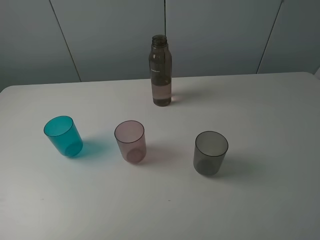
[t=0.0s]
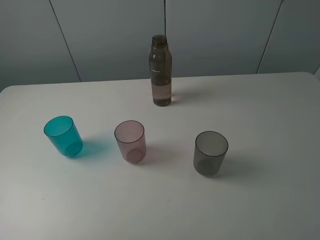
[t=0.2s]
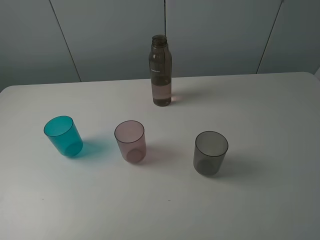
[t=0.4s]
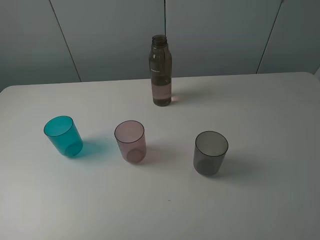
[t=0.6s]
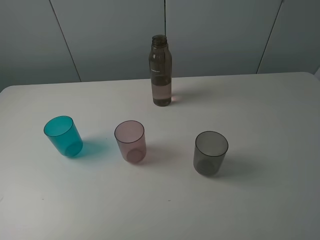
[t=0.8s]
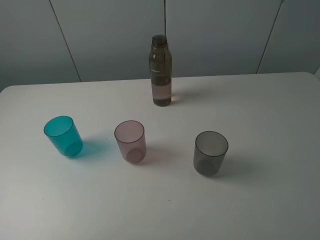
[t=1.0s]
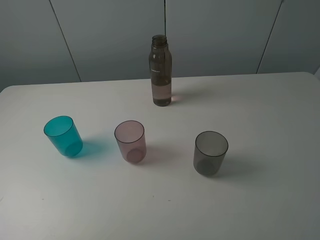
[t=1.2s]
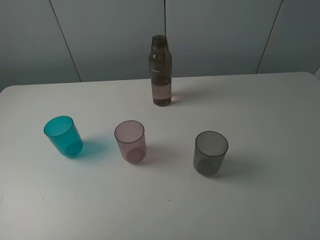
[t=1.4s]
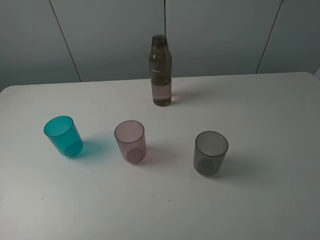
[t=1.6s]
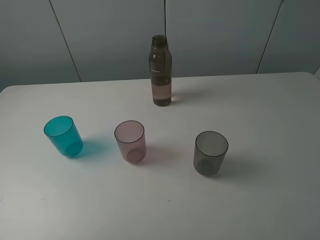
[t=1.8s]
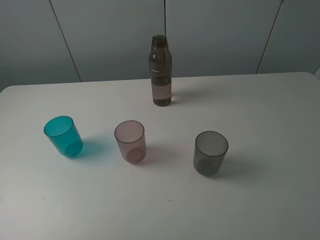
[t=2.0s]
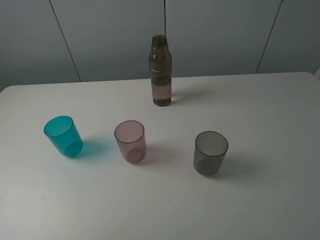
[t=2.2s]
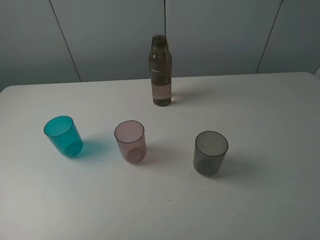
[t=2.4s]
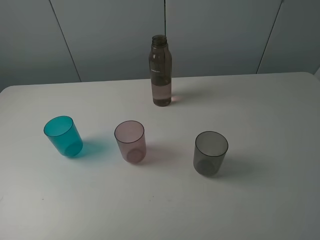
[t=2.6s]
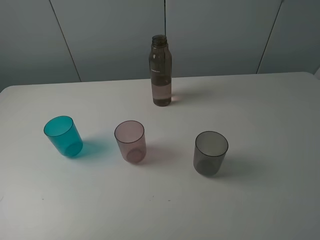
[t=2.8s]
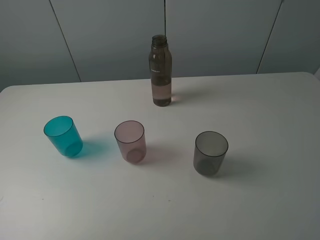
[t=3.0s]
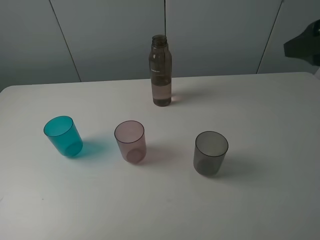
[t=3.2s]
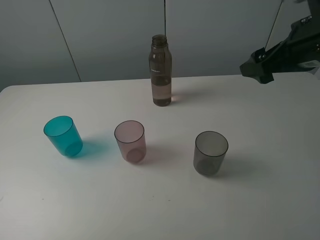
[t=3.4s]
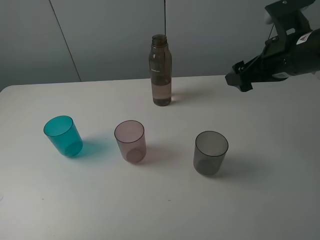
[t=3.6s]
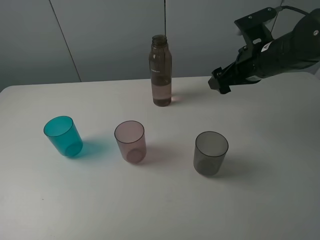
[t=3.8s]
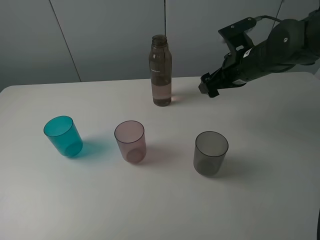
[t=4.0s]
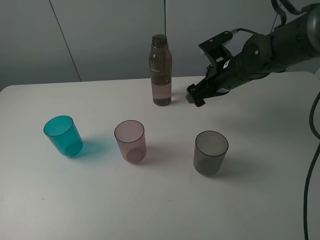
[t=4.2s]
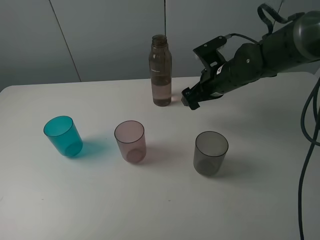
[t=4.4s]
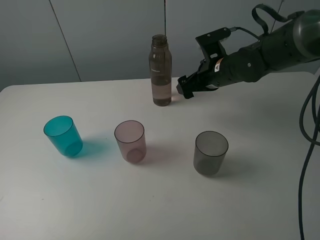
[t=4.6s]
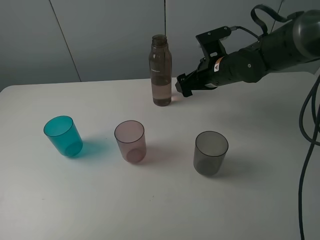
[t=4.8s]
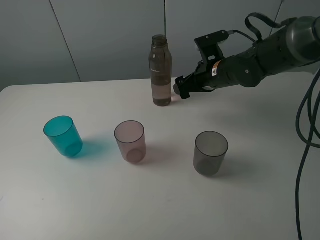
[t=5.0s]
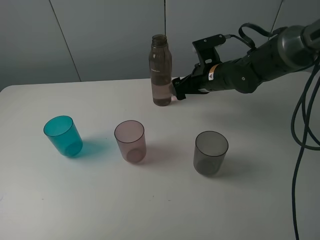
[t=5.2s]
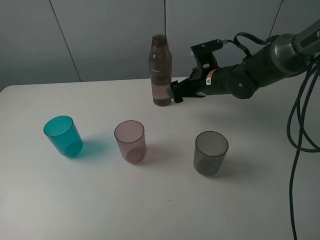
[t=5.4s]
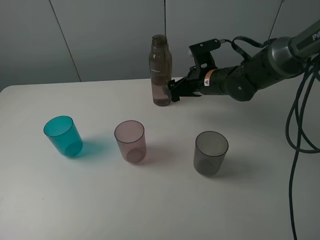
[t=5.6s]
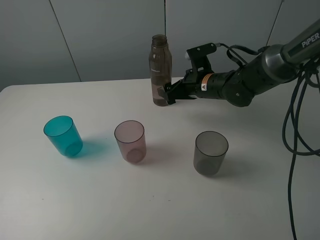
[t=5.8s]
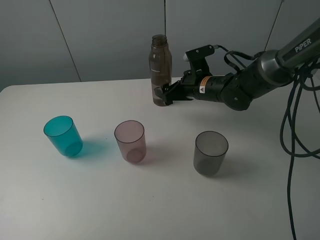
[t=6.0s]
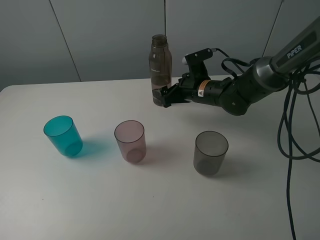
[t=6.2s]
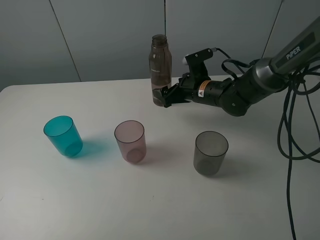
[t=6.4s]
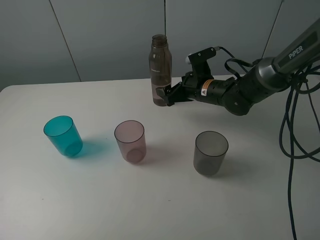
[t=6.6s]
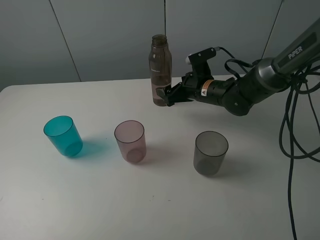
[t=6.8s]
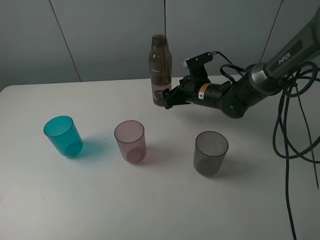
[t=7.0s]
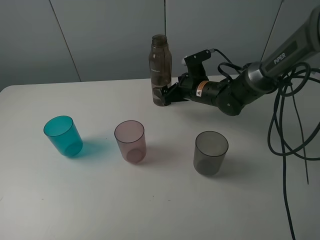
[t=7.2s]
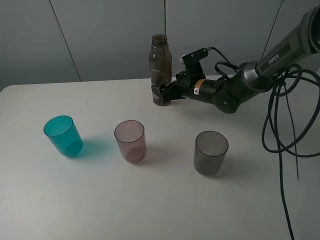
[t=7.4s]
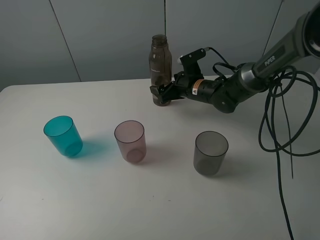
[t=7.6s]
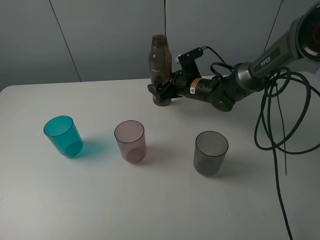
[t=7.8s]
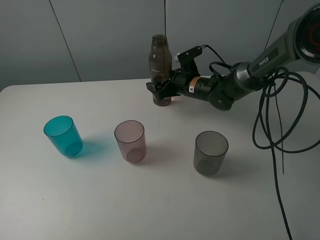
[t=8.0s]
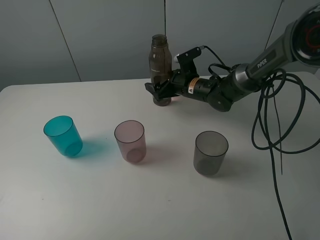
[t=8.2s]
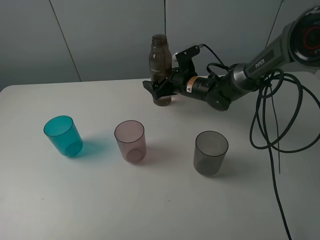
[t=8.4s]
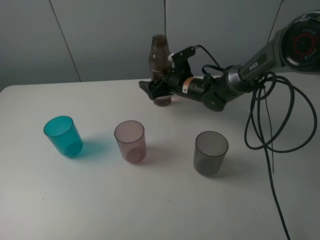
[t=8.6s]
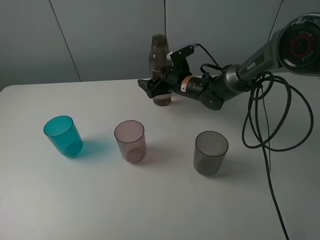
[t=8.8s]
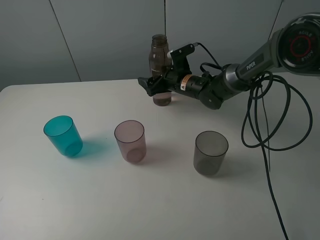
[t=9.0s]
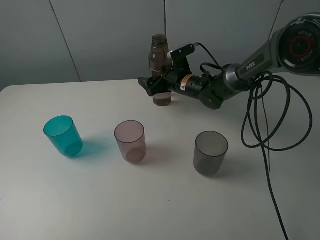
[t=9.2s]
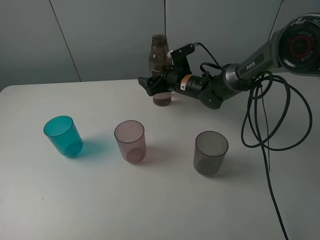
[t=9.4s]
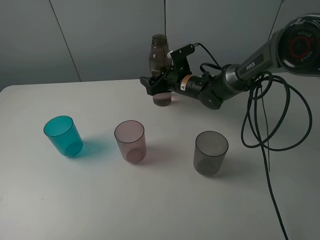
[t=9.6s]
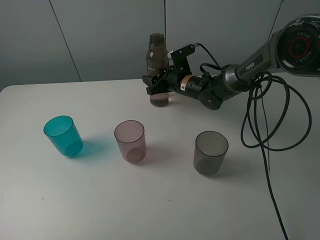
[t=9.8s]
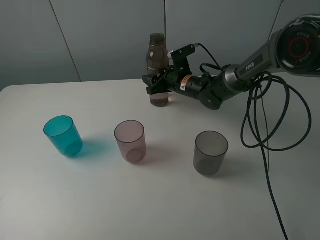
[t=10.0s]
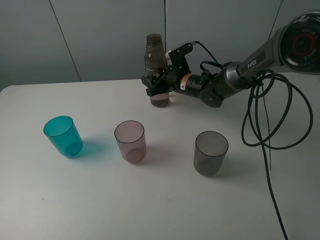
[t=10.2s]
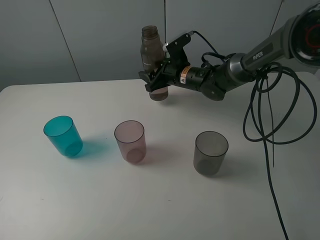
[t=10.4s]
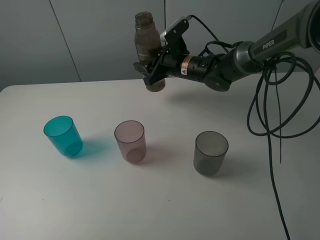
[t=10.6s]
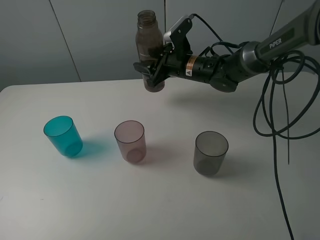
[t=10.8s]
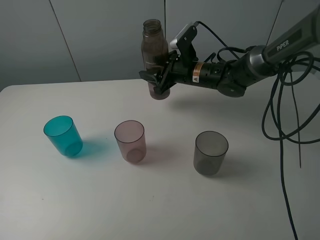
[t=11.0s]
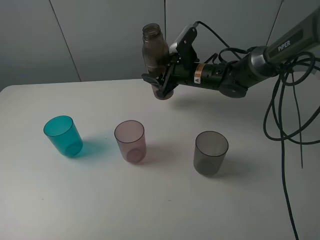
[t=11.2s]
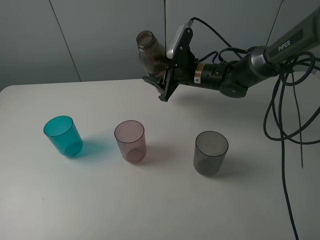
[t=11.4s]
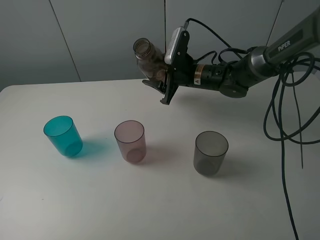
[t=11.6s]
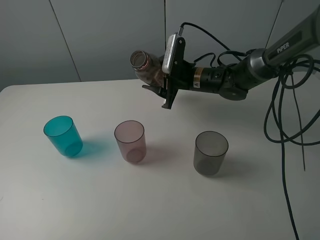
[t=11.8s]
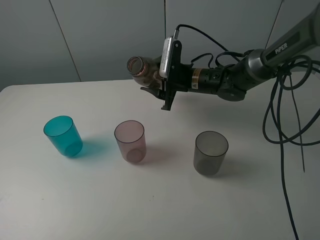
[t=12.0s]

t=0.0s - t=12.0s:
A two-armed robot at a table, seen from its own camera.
Task of the whole recording: pick up the bottle filled with water and pour water into the middle cup of the three cups.
Step, t=0.0s - t=9.8s: Grasp the brown bottle with the right gripper.
t=0.0s - t=1.6s: The two grippers keep their place.
t=3.0s - t=4.4s: The right gripper heads downward, forward and to the left, covering about 30 cm.
t=4.4s - t=6.0s: The right gripper moves roughly 5 cm.
t=6.0s - t=7.6s: The right gripper shifts by roughly 5 cm.
t=7.6s - t=9.0s: The grippers move only a little.
t=9.0s - t=10.4s: The right gripper closes up.

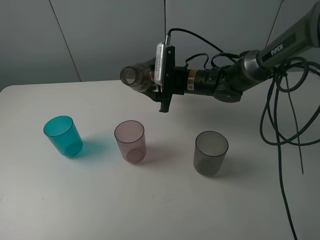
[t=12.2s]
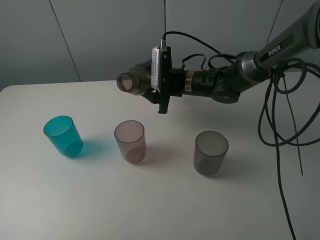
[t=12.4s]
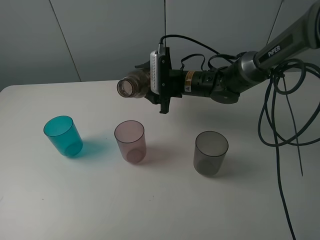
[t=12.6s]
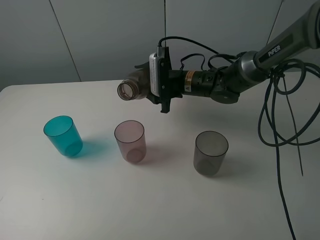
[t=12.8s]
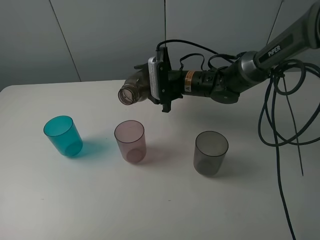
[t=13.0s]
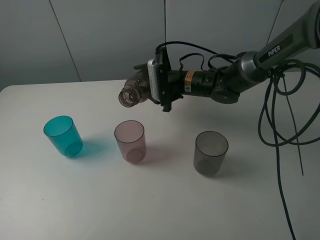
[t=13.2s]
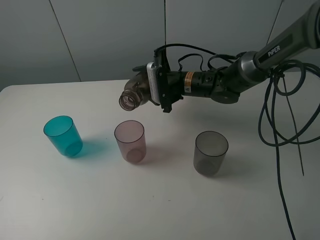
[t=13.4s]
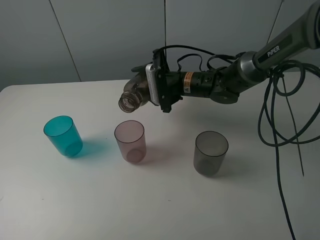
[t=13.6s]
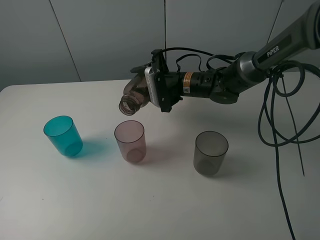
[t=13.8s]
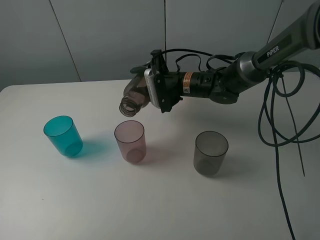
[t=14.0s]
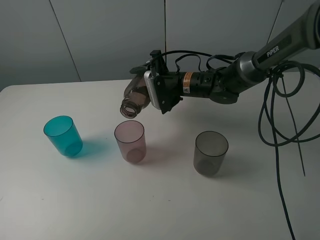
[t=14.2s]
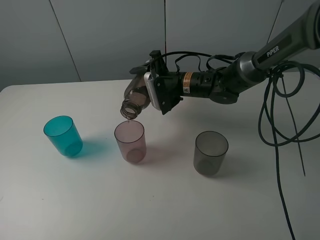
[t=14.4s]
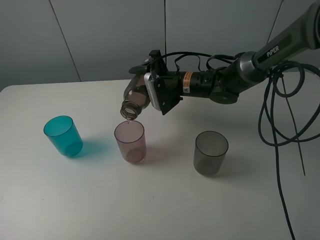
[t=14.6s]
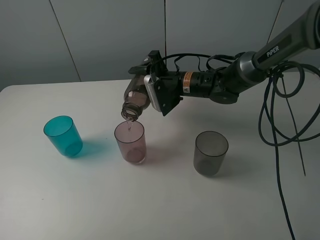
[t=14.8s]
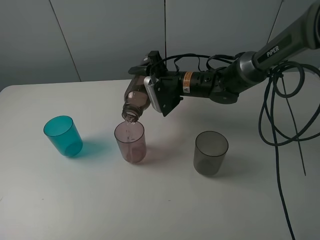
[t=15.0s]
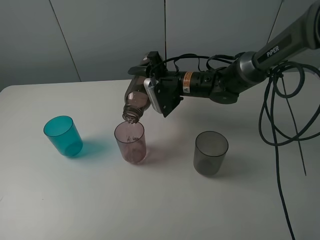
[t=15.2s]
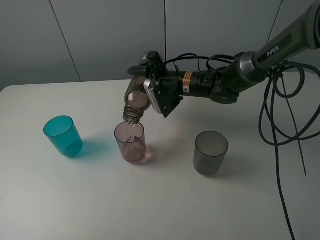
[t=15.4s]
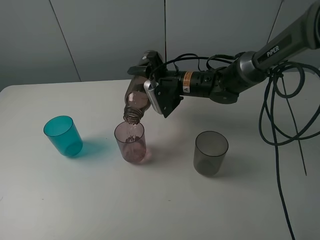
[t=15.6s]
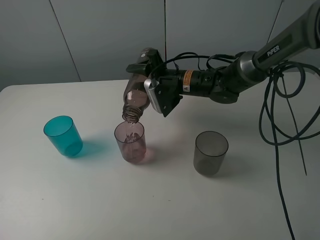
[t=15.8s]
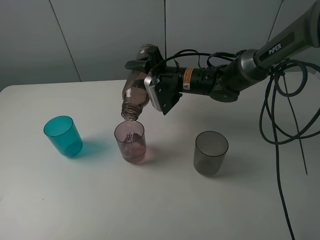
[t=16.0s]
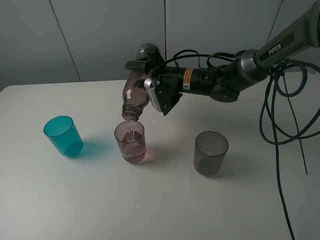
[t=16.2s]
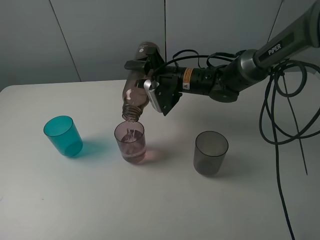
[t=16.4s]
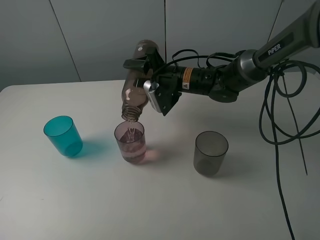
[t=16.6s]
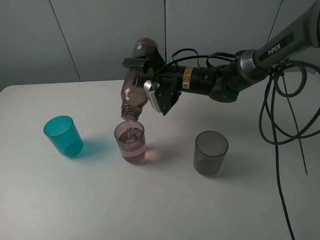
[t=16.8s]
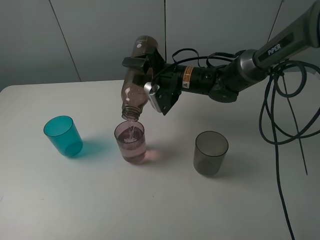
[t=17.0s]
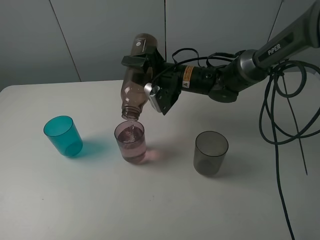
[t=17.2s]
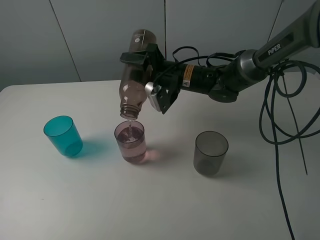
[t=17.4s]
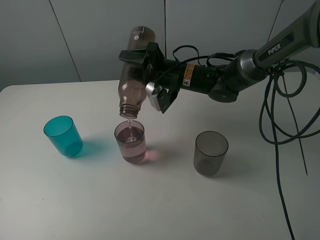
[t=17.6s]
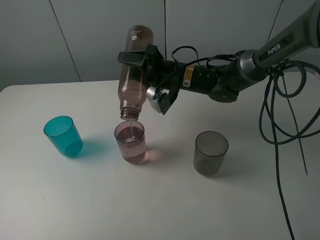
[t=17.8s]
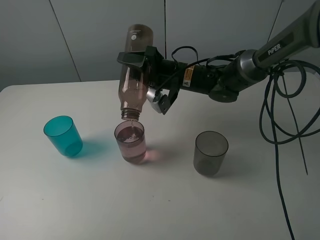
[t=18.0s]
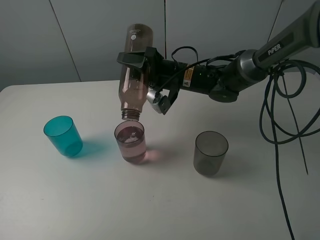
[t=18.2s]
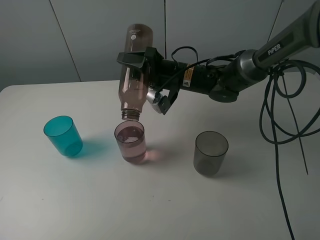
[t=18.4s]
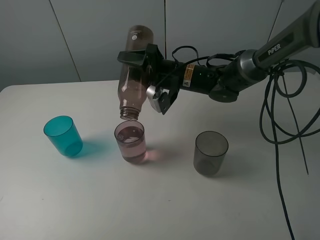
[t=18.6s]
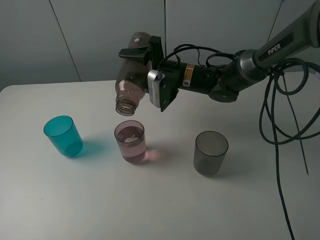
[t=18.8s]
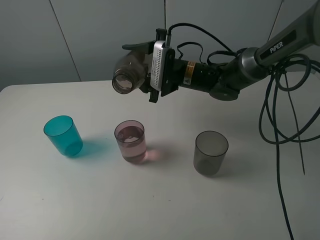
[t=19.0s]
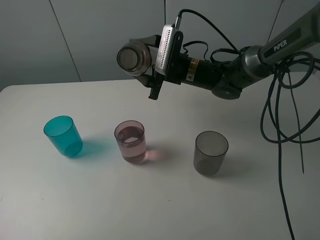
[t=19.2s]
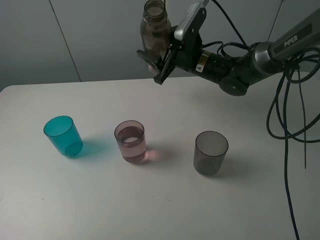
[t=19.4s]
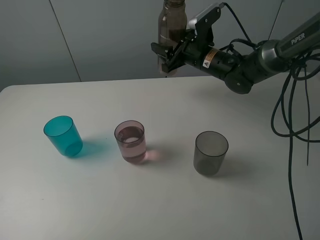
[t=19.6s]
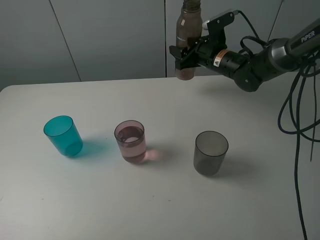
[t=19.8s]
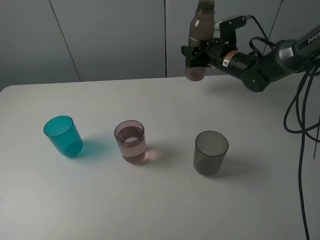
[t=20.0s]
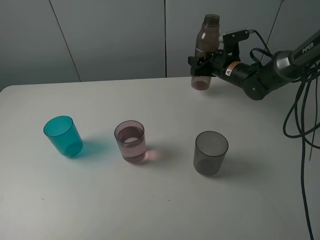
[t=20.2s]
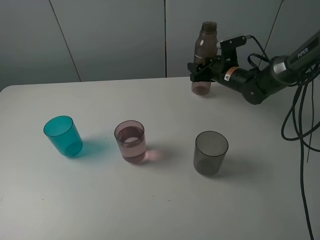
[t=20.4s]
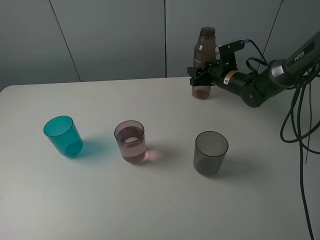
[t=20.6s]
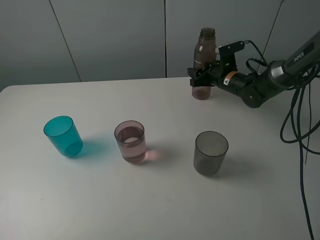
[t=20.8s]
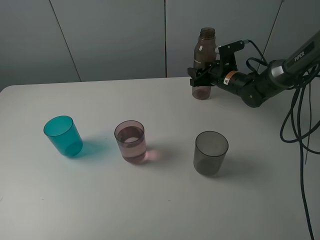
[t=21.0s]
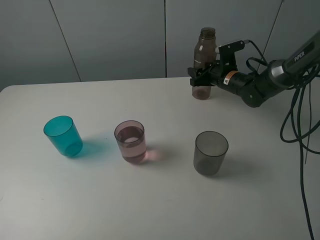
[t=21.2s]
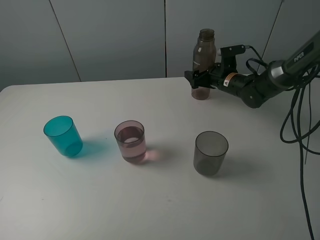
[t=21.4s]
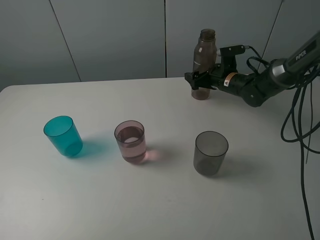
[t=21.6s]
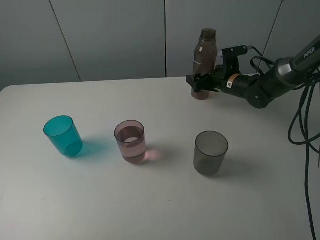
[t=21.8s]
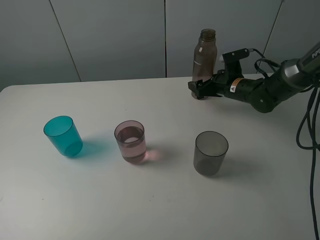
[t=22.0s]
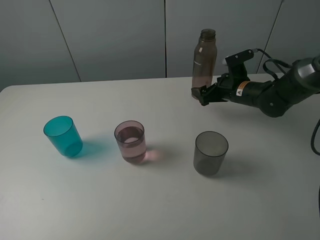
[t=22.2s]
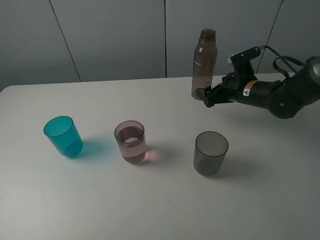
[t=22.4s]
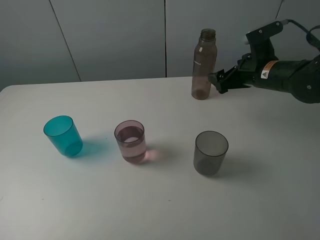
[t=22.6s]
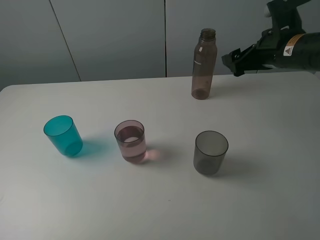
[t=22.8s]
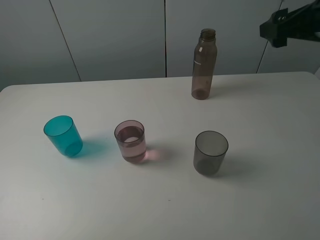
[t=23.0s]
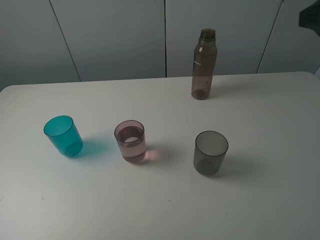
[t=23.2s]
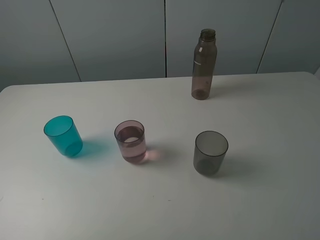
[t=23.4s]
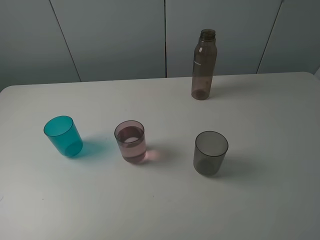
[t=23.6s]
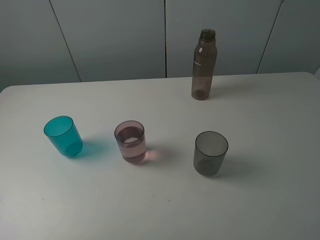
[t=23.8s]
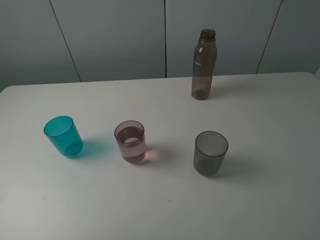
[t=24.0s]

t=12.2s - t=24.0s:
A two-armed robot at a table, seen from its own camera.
Task of the whole recording: pick up the bottle filled with water and pour water into the middle cup of the three cups.
Step, t=12.2s - t=18.6s: Pour water from transparent bottle to red cup with the right gripper.
Step, t=18.8s - t=22.4s: Place the brown bottle with the right gripper.
t=13.6s - t=15.2s: The grippers make only small movements.
t=15.2s - t=16.6s: The grippers move only a little.
t=16.6s - t=18.2s: The grippers stay close to where they were, moving slightly.
t=18.2s - t=19.6s: The right gripper heads to the right and forward, covering about 10 cm.
t=19.6s - t=21.0s: The right gripper shifts some 10 cm downward and to the right.
t=21.0s - t=22.6s: The right gripper is displaced backward and upward by approximately 15 cm, and opens its fingers.
t=22.6s - t=24.0s: The right gripper shifts approximately 35 cm backward.
